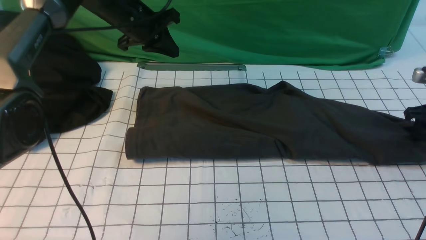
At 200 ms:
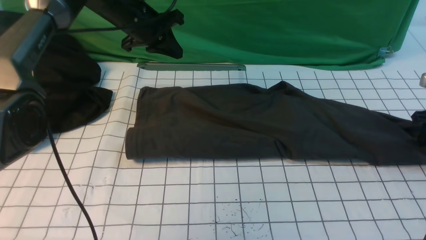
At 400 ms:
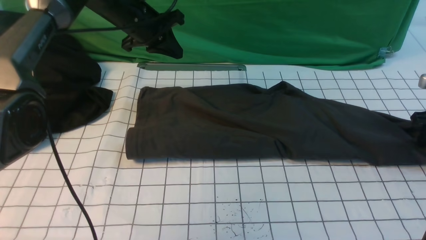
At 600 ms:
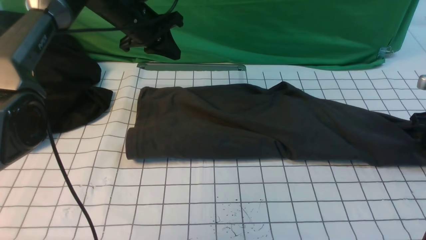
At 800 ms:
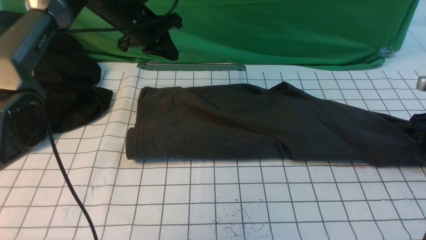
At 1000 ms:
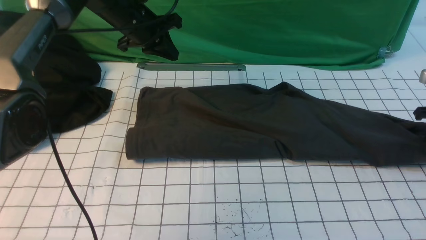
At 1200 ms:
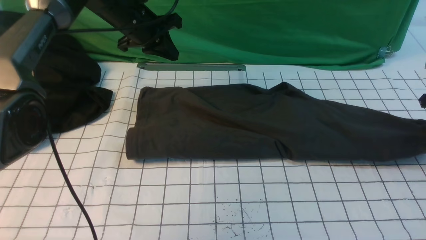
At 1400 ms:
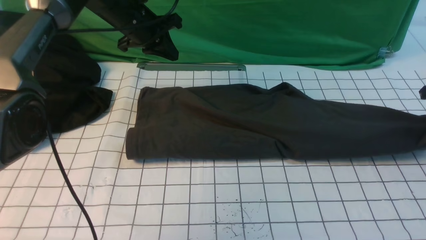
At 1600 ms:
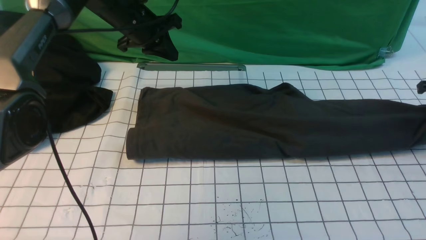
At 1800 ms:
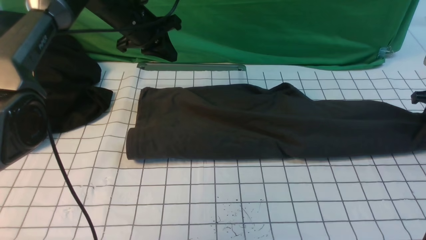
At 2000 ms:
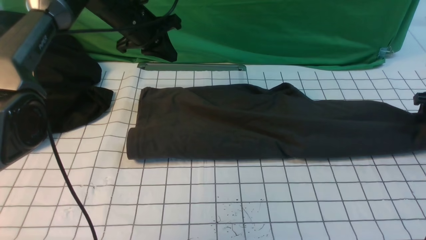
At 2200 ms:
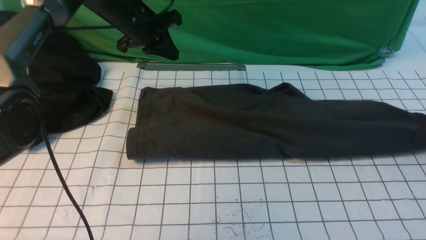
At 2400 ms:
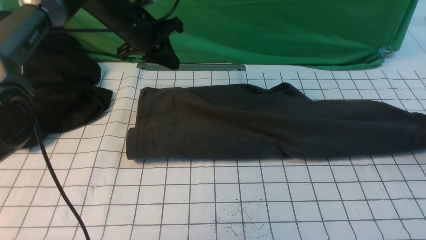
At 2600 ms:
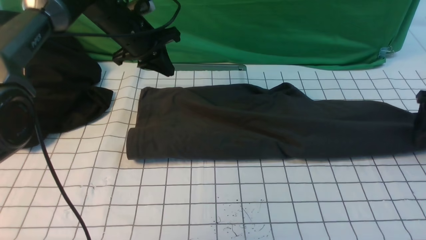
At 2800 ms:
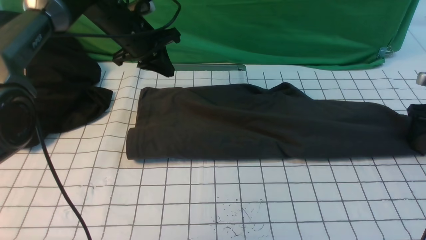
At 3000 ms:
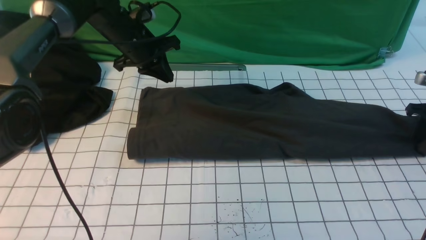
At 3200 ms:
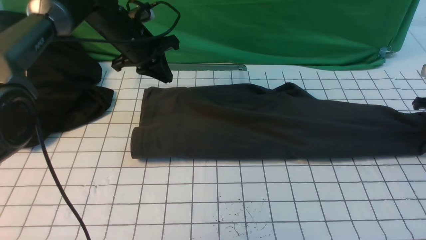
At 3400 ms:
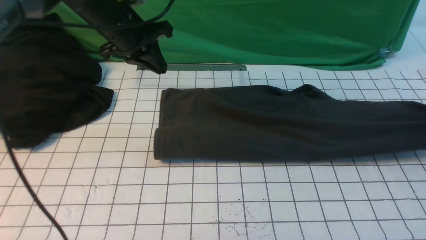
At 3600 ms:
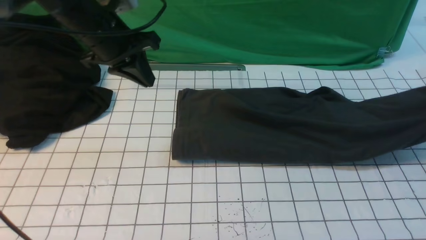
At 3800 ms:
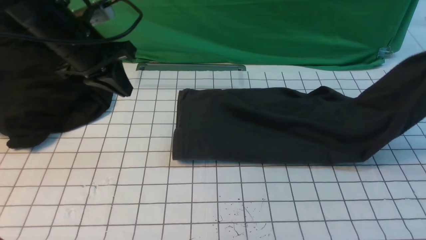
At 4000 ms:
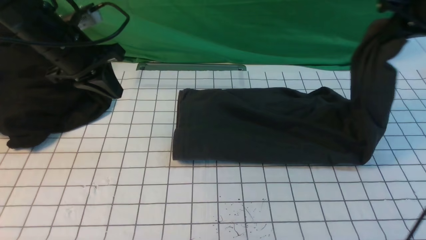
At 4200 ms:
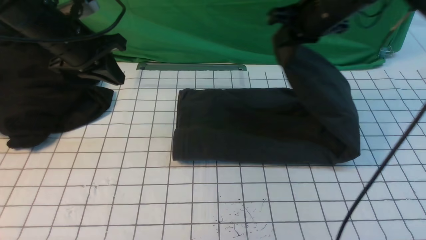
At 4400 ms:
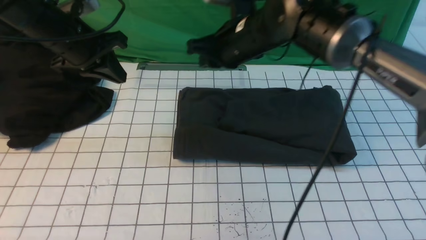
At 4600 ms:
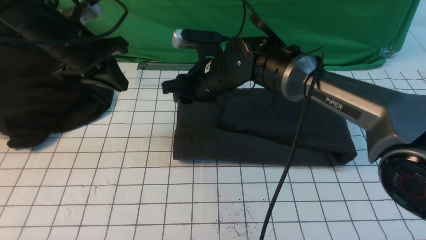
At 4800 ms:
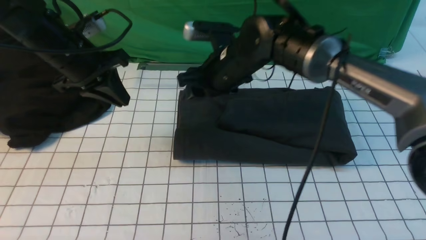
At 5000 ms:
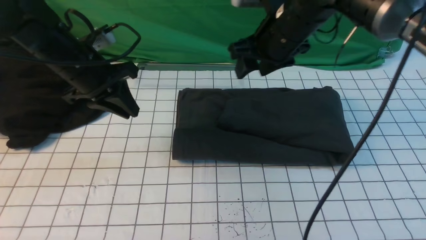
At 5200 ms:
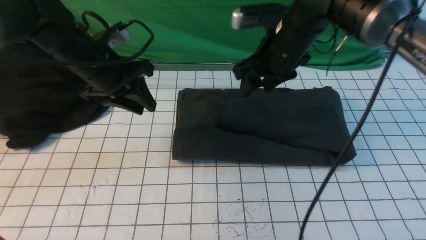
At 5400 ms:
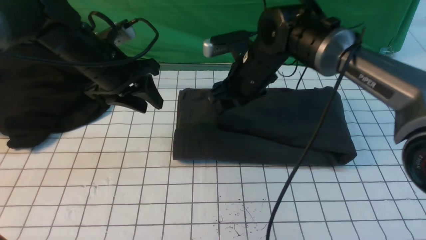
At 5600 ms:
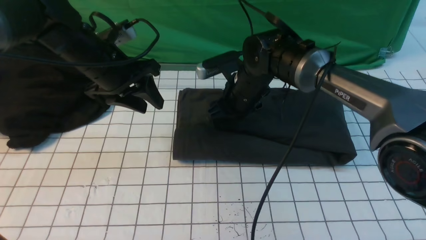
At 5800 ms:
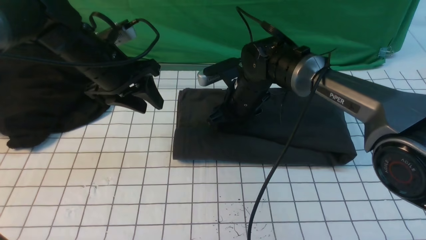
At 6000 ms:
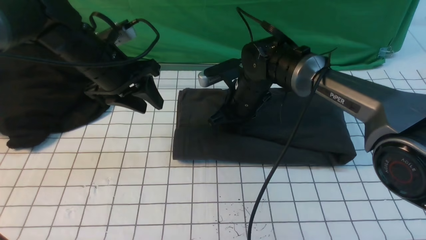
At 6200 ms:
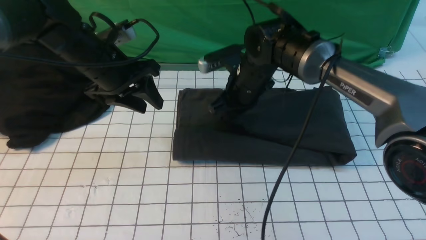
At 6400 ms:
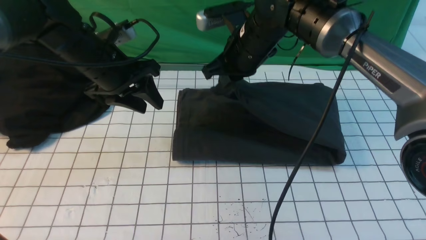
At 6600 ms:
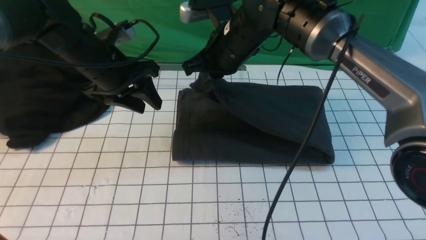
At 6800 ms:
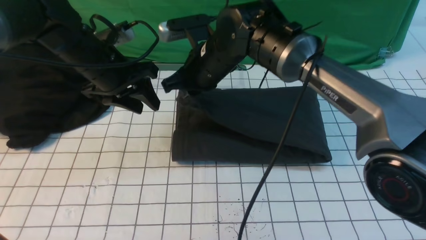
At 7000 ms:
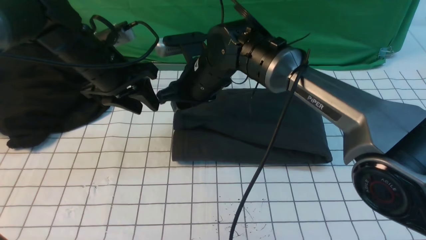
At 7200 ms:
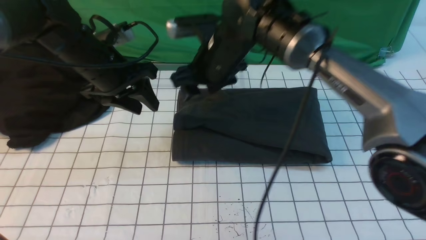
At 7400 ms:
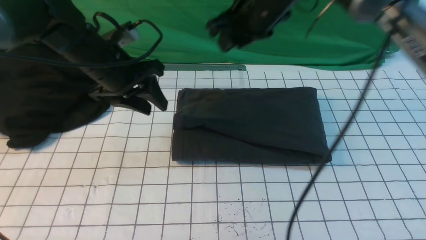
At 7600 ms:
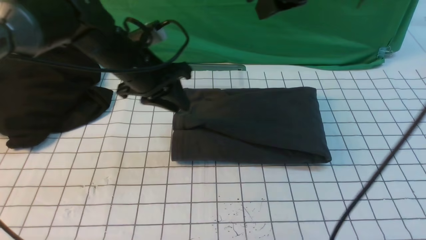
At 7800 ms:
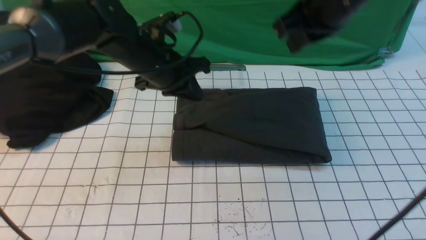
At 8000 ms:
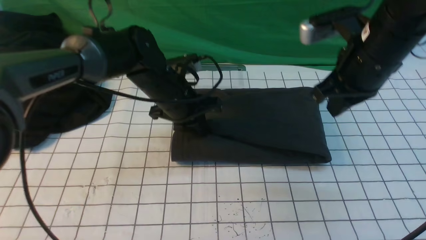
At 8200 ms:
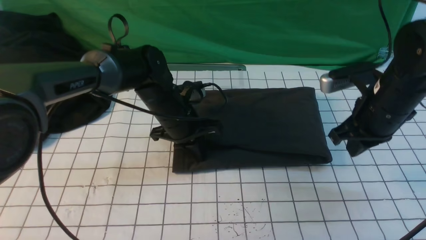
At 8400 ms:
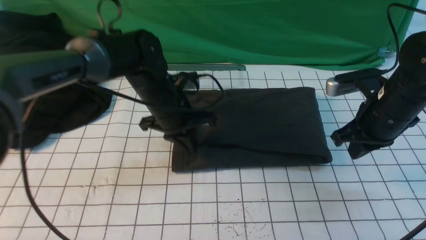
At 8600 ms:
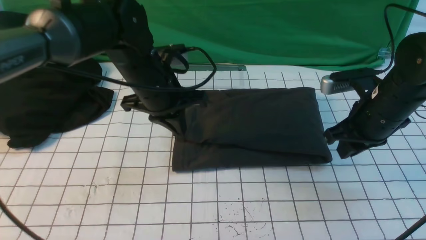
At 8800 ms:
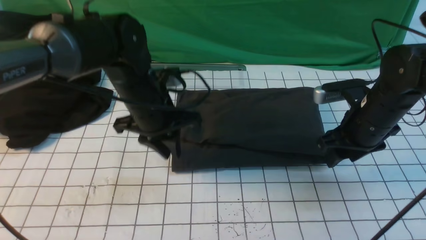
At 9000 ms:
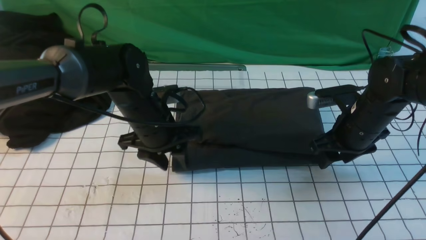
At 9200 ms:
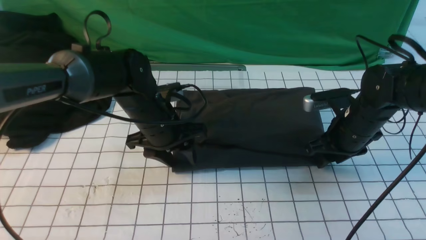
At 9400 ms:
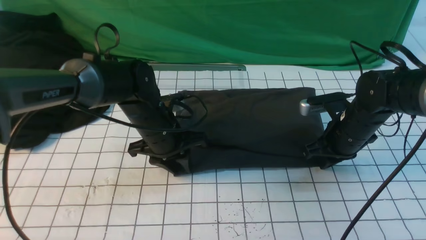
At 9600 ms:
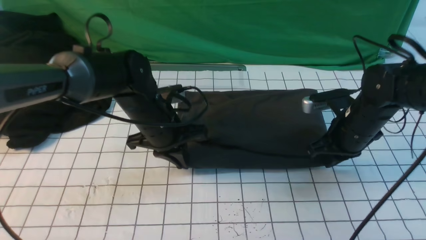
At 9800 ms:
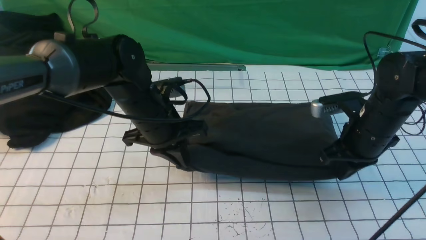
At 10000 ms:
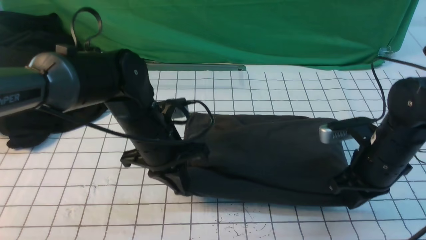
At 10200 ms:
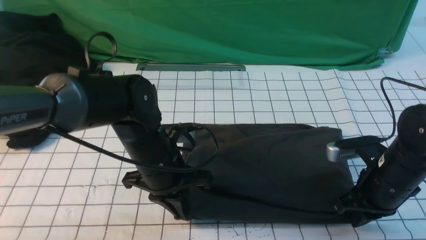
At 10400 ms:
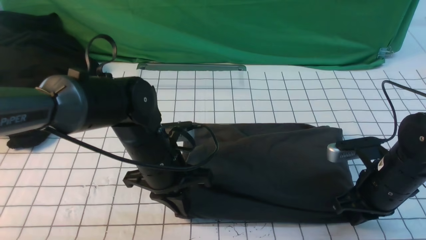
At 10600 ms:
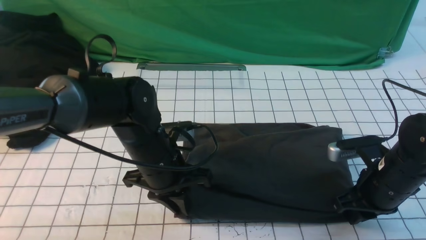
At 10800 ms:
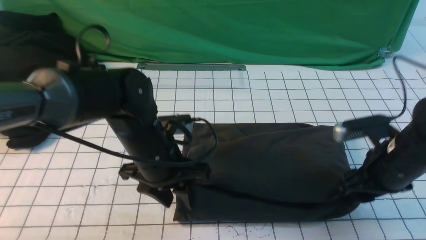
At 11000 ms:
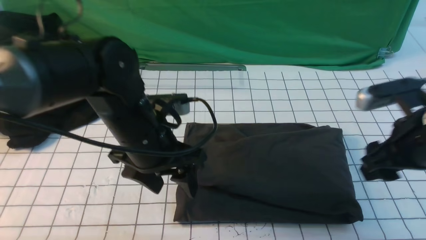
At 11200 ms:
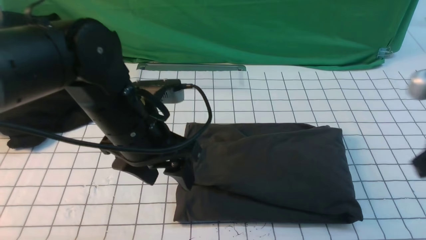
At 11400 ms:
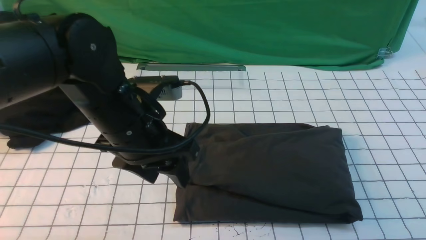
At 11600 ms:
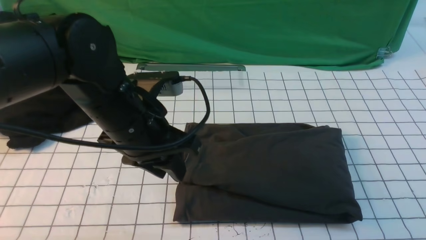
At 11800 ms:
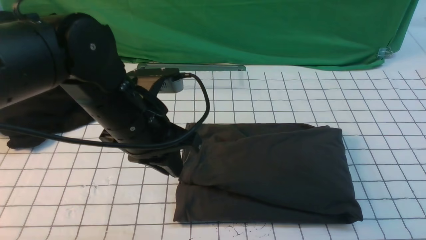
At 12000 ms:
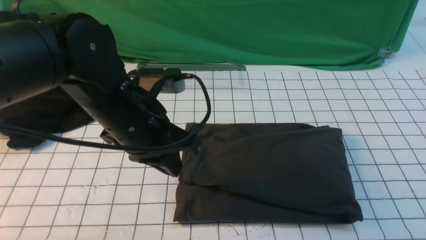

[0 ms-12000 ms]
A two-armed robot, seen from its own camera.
Step, 0 ms to 3000 ms: use the right arm to clamp the right edge of the fabric.
Step, 3200 ms to 7000 ms: use the right arm to drag the right edge of the fabric to the left and folds it over the left edge.
0 ms to 1600 ms: The right gripper closes up.
1600 ms to 3000 ms: The right gripper opens, then closes once more.
3000 ms to 4400 ms: The left gripper moves backward and to the left, roughly 10 cm; the right gripper moves to the left, some 40 cm.
4400 ms to 6000 ms: The right gripper is displaced downward by roughly 10 cm, and opens and closes again. The left gripper shifts by roughly 5 cm, and opens.
6000 ms to 7600 ms: The left gripper is displaced to the right by approximately 5 cm, and closes up. The right gripper heads upward, covering roughly 20 cm, and opens and closes again.
7600 ms to 9000 ms: The right gripper shifts about 25 cm downward and to the right, and opens its fingers. Meanwhile the left gripper heads downward, covering roughly 5 cm, and opens its fingers.
9000 ms to 10400 ms: The grippers both shift backward by some 10 cm. The right gripper closes its fingers. The left gripper closes.
10400 ms to 12000 ms: The right gripper goes roughly 25 cm backward and upward, and opens, then closes once more, while the left gripper moves upward, roughly 10 cm, and opens, then closes again.

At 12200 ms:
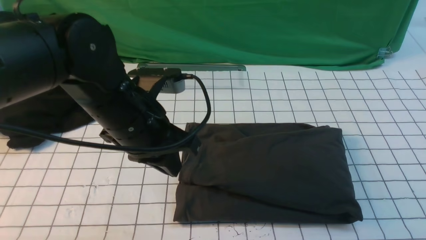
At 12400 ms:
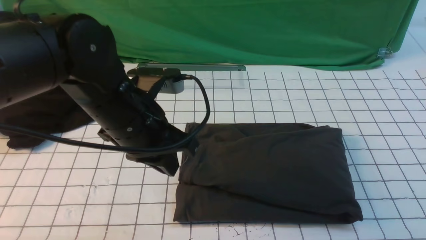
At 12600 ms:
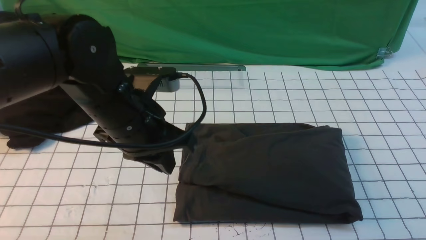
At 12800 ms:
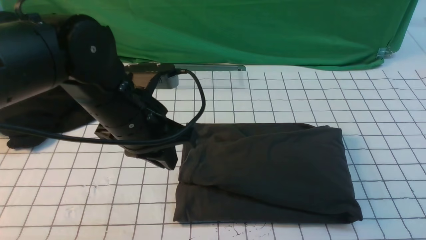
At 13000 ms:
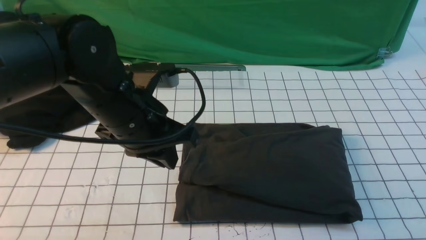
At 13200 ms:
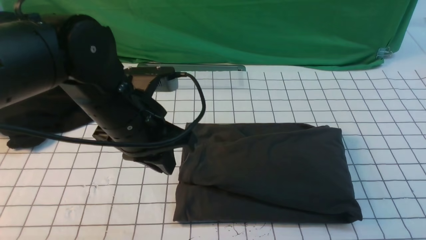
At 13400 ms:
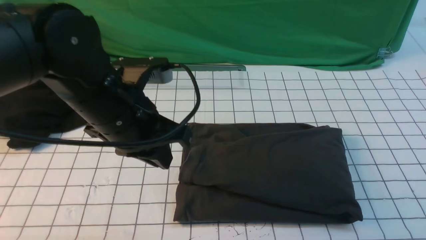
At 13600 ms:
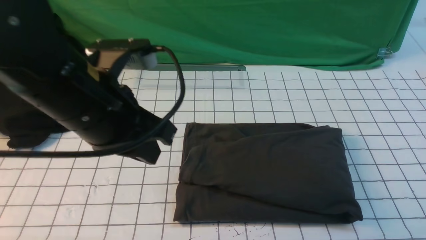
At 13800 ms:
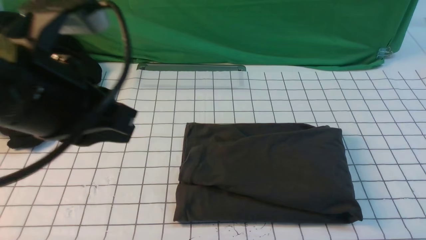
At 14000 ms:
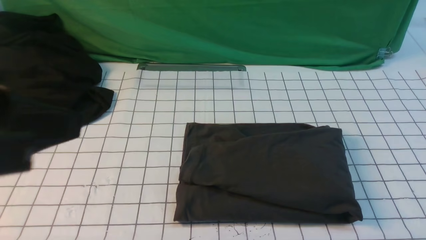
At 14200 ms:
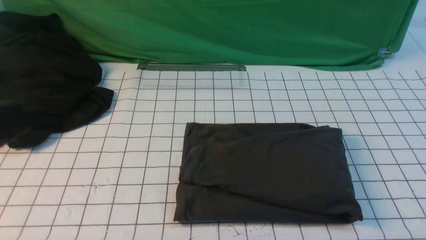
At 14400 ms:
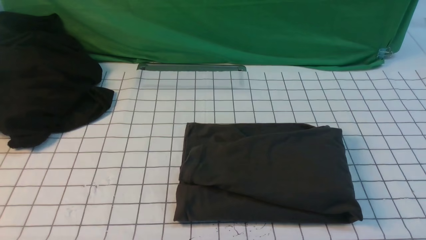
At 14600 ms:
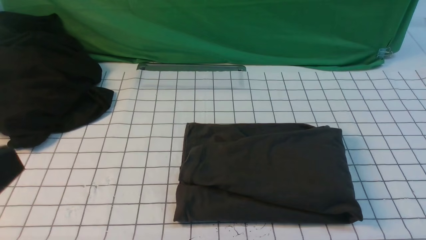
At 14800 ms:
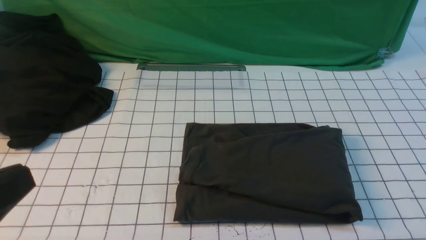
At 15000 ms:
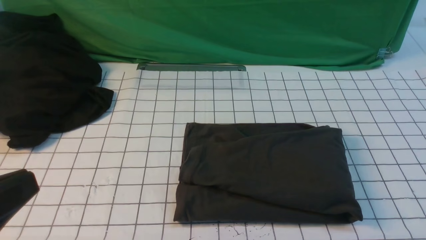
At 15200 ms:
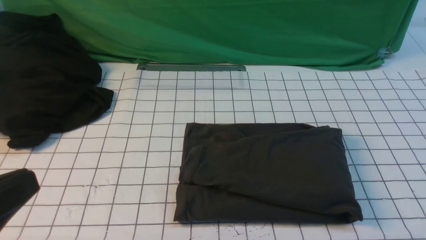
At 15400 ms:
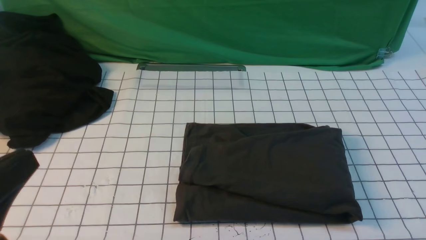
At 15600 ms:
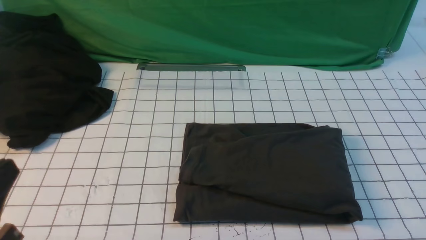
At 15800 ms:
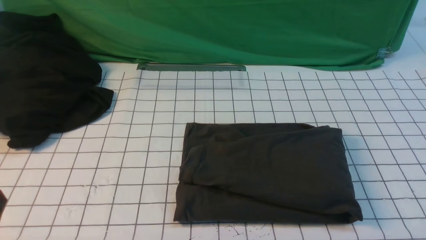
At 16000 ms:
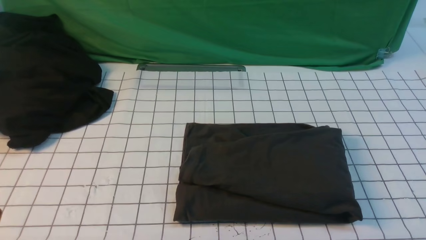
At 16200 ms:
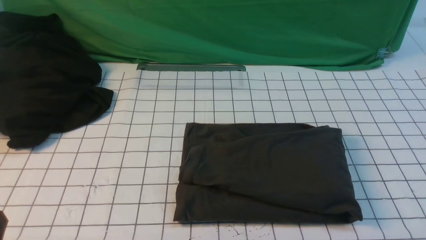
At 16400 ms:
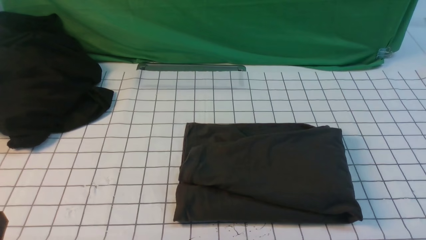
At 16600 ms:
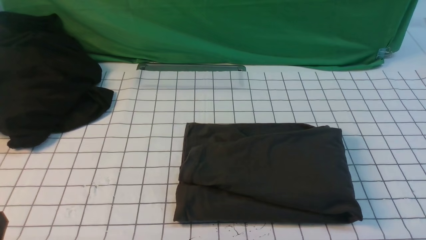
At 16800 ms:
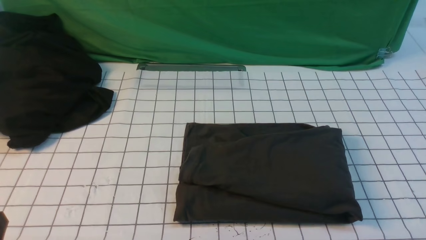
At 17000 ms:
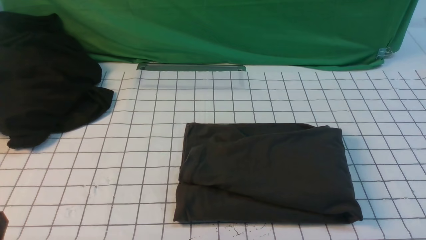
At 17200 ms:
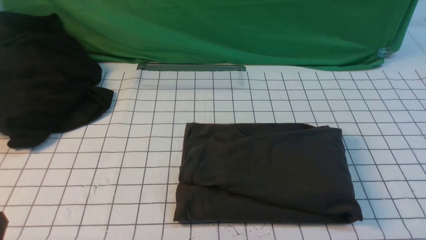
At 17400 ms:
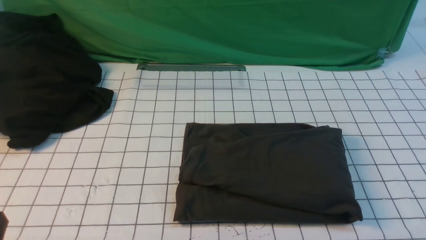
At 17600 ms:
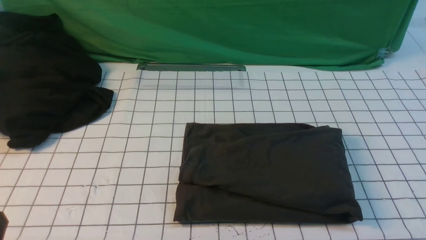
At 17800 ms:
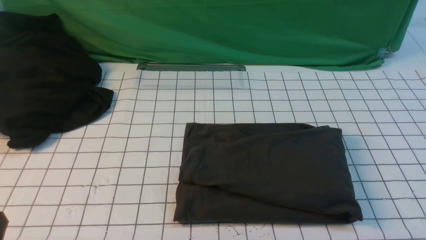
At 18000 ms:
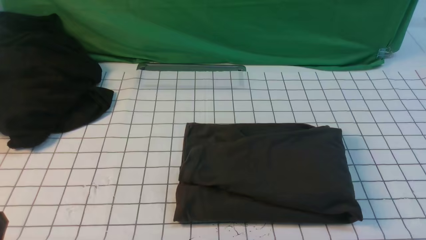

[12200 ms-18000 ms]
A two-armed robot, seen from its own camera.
12200 ms to 13600 ms: The left gripper travels upward and backward by some 10 cm, while the right gripper moves downward, approximately 10 cm.
13600 ms to 15000 ms: The left gripper heads backward and to the left, covering about 20 cm.
15000 ms to 16600 ms: The left gripper heads downward, covering about 15 cm.
16600 ms to 18000 ms: Both grippers stay put.
